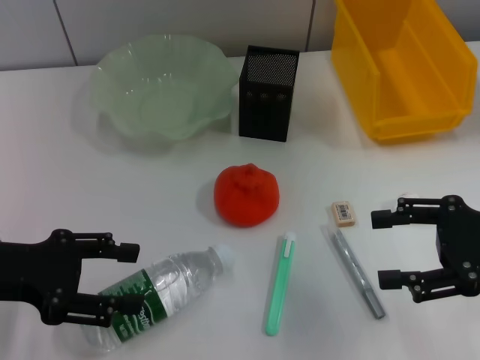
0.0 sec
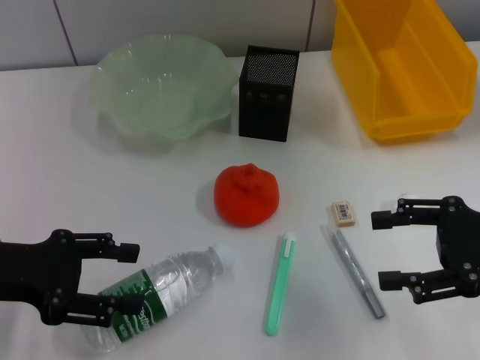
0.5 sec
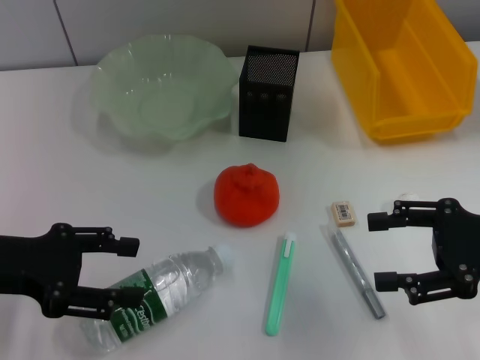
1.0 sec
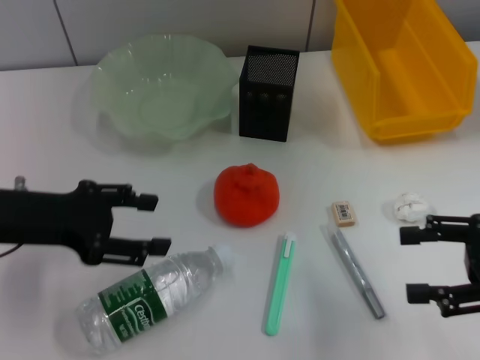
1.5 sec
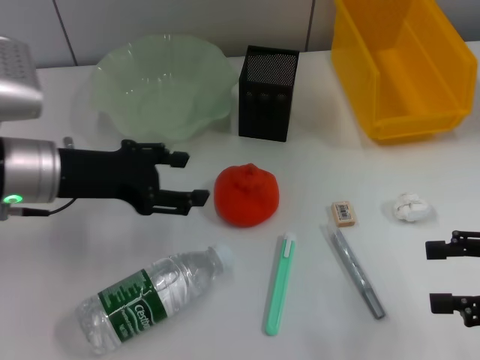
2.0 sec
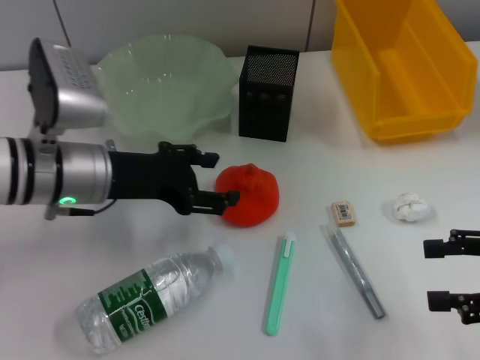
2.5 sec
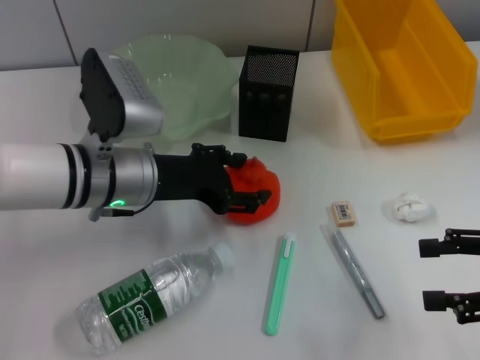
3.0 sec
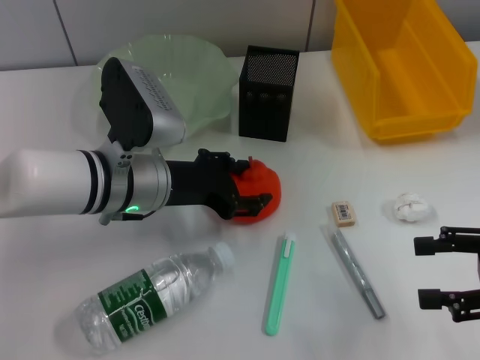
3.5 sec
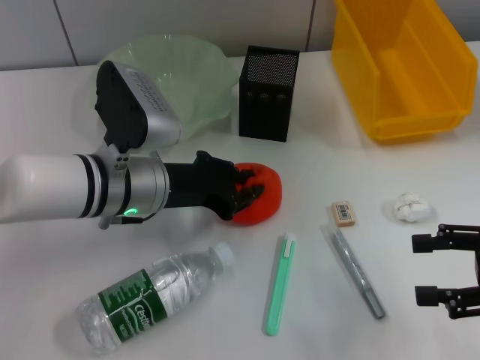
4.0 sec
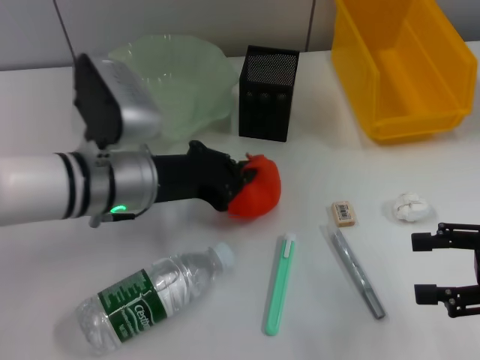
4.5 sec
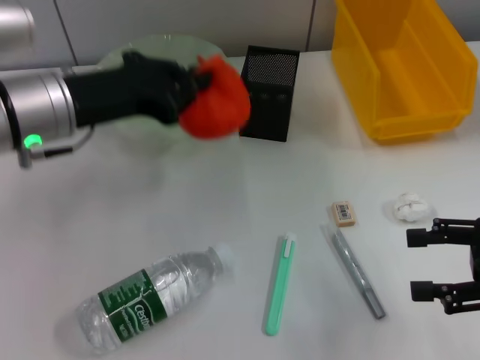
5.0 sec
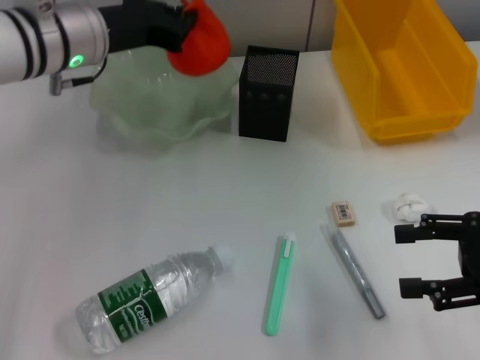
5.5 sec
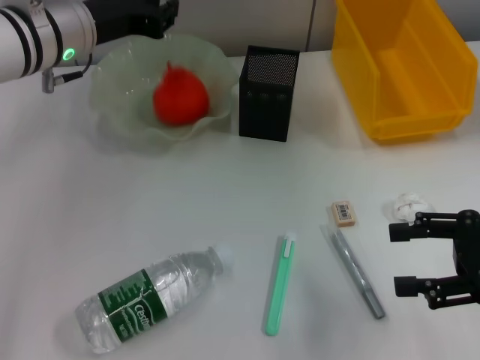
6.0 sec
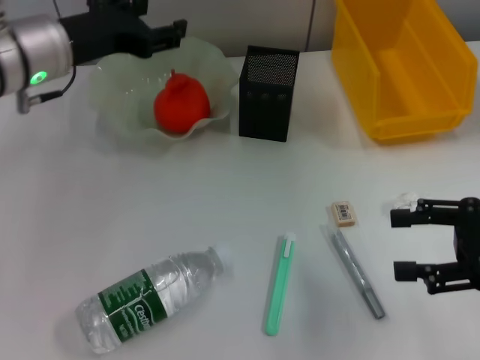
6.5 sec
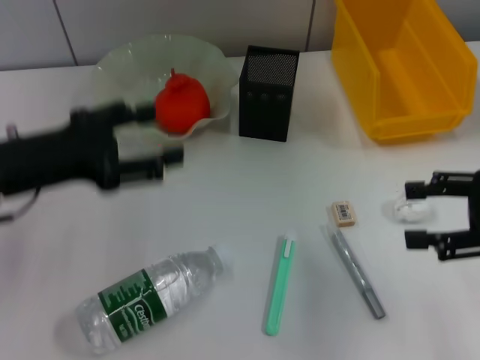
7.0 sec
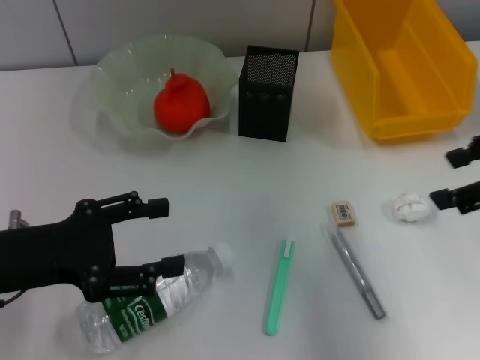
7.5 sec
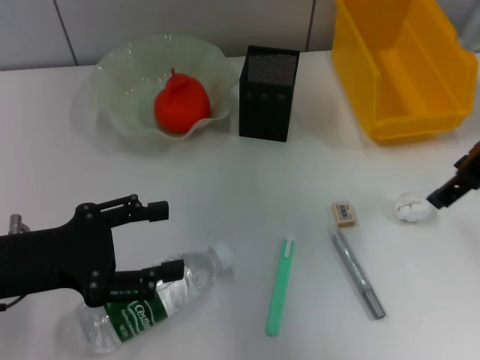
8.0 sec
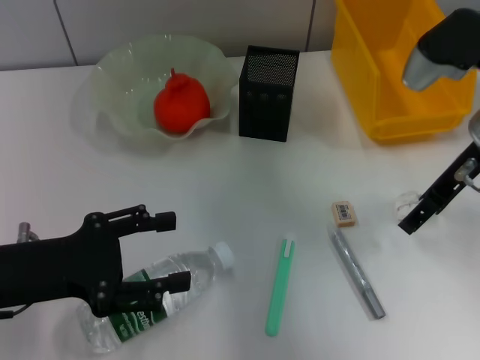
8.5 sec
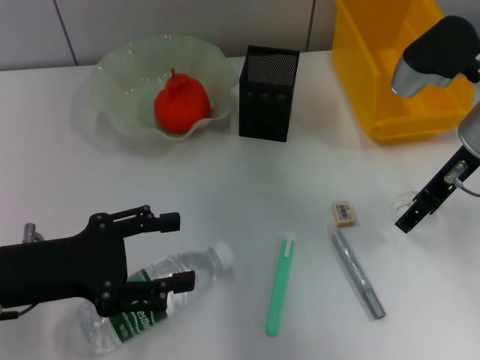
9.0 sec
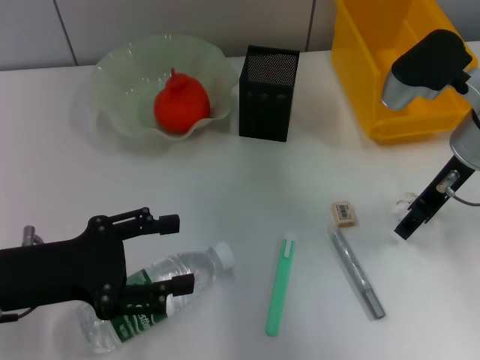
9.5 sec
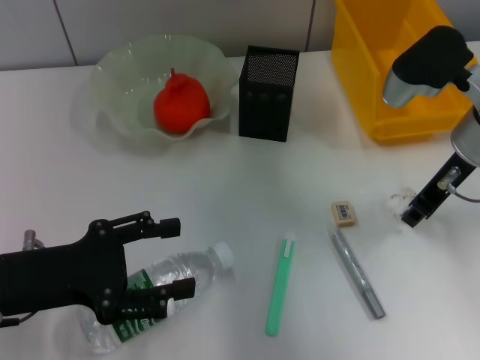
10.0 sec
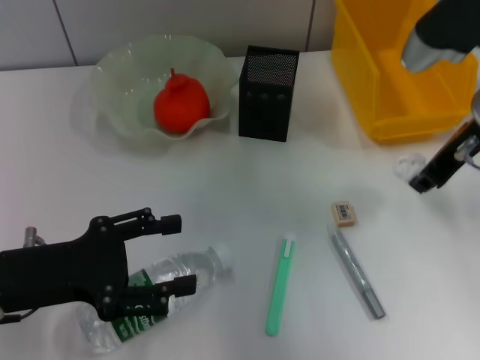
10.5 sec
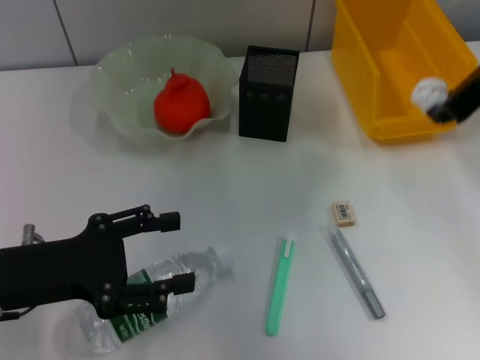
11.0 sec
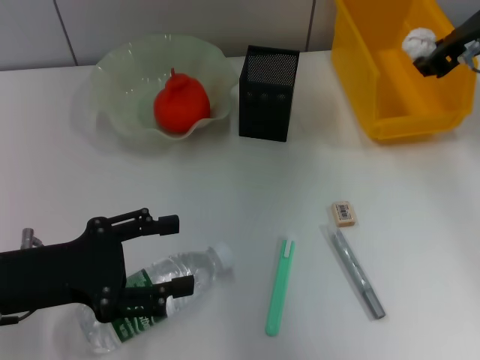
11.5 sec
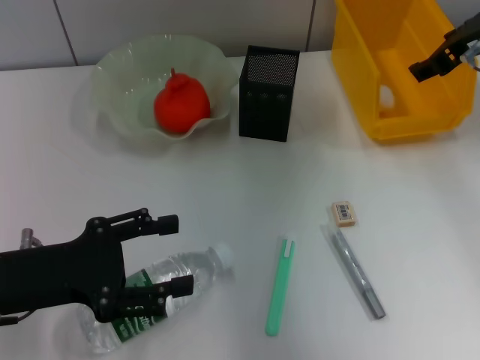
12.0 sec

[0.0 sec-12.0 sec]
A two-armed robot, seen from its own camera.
Step, 0.0 sec to 4.0 sec: Grab the orange with the left hand.
Step, 4.5 sec to 6.0 sec: Place the orange into the fruit bowl with the left hand.
Step, 6.5 sec to 9.5 sec: Grab the paper ball with the right hand.
Step, 10.5 sec to 11.5 sec: Place the paper ball into the trash can with the right hand.
0.0 sec to 2.0 sec: The right gripper ends up about 5 cm from where it was, while the left gripper heads to the right and forward, covering about 10 cm.
2.0 sec to 4.0 sec: The left gripper goes approximately 10 cm to the right.
4.0 sec to 6.0 sec: The left gripper heads forward and upward, covering some 15 cm, and closes.
6.0 sec to 8.0 sec: The right gripper is displaced forward, upward and to the left by about 15 cm; the left gripper moves backward and to the left, roughly 20 cm, and opens.
8.0 sec to 10.0 sec: The right gripper goes about 5 cm downward, and closes its fingers.
10.0 sec to 12.0 sec: The right gripper travels upward by about 5 cm, and opens.

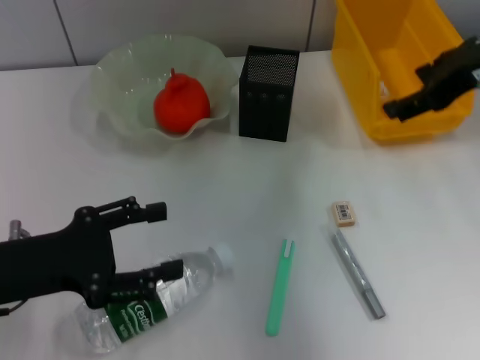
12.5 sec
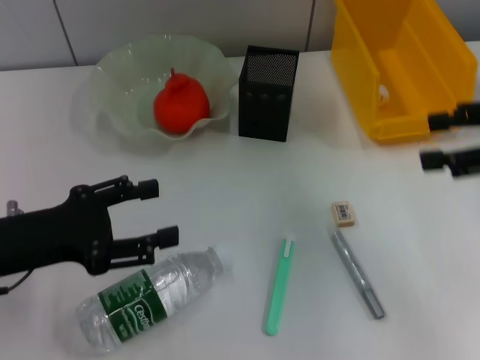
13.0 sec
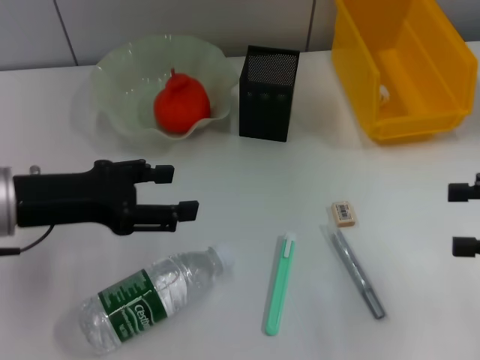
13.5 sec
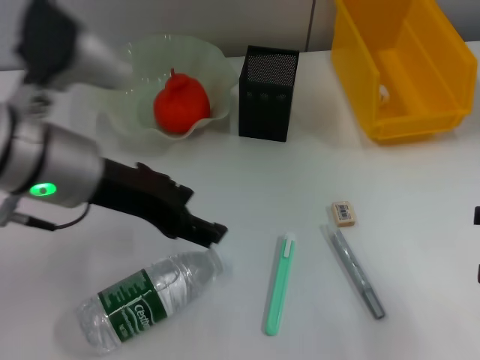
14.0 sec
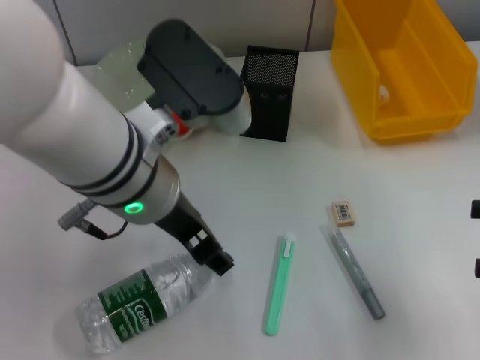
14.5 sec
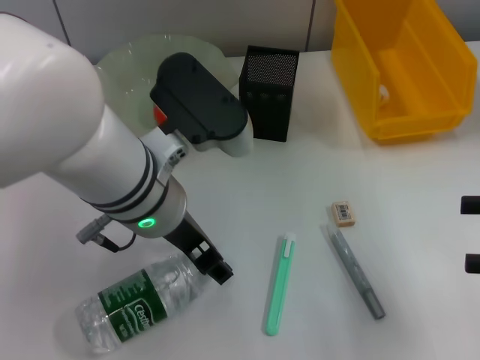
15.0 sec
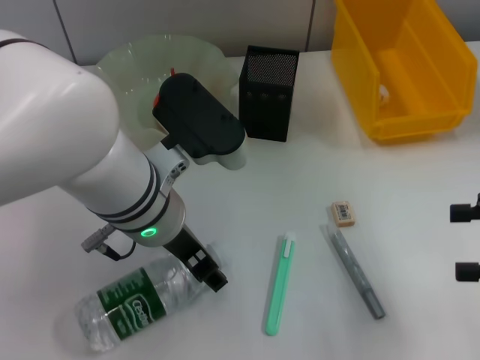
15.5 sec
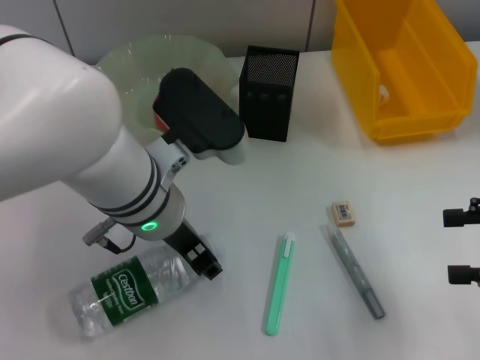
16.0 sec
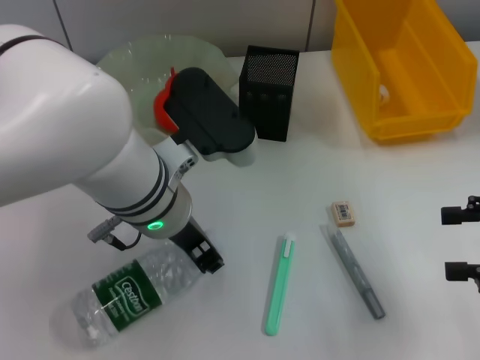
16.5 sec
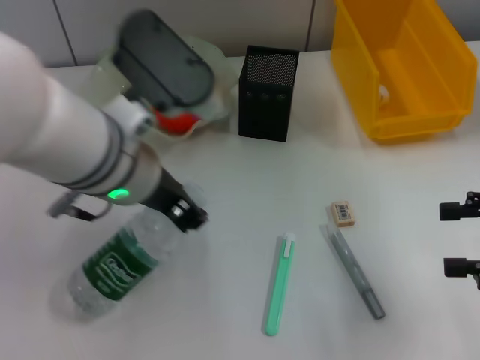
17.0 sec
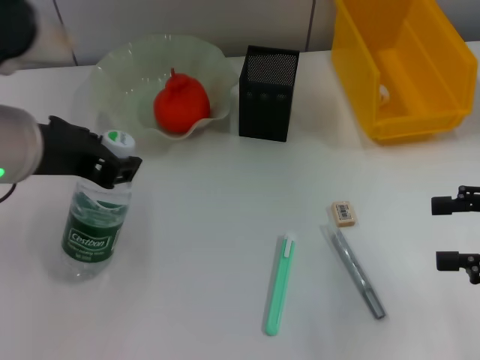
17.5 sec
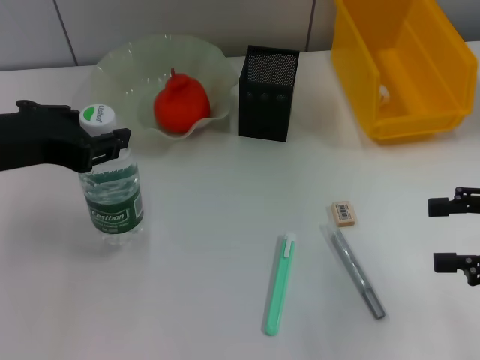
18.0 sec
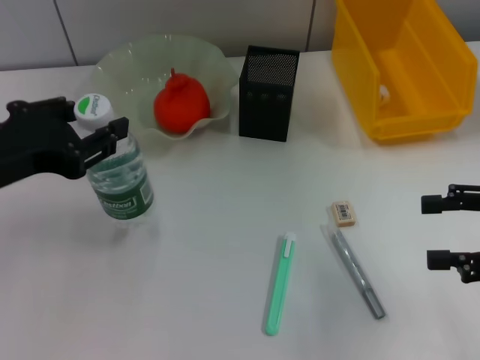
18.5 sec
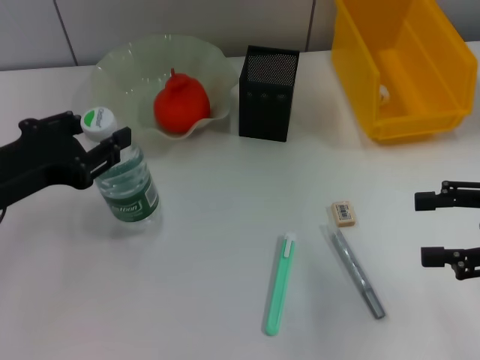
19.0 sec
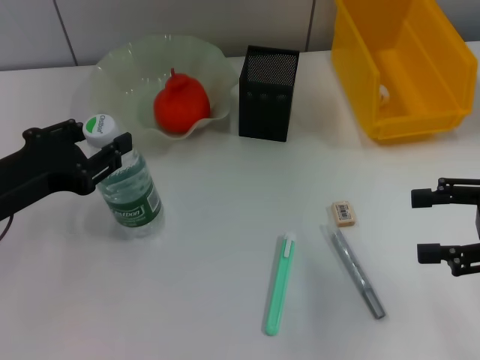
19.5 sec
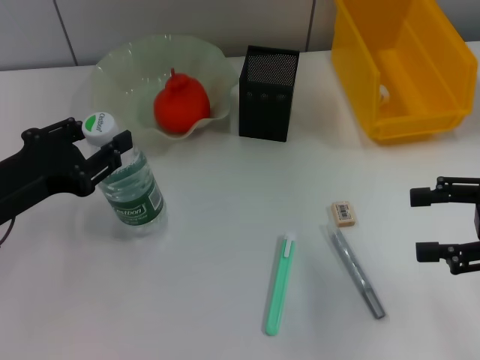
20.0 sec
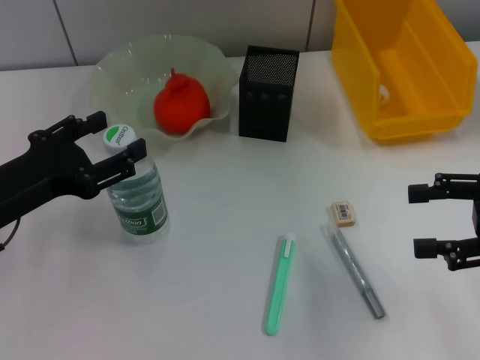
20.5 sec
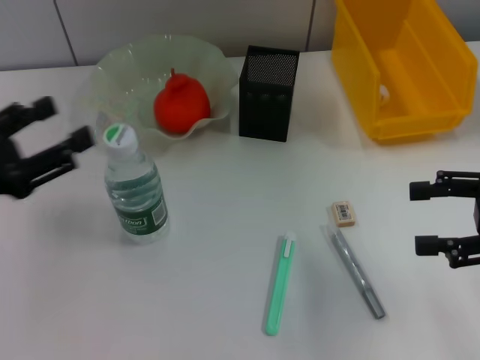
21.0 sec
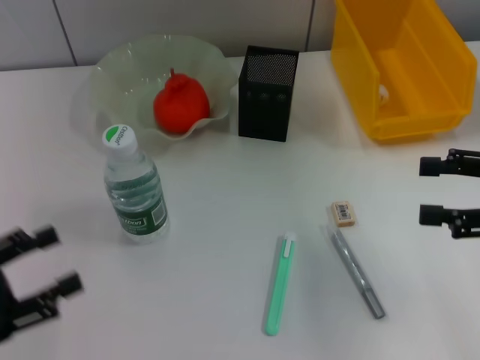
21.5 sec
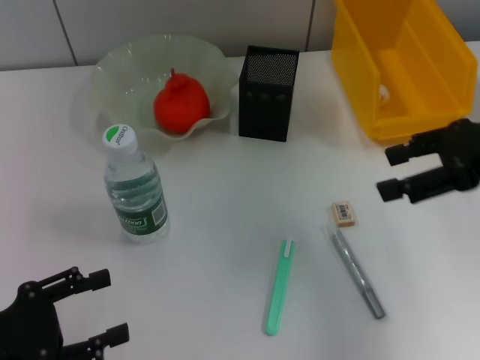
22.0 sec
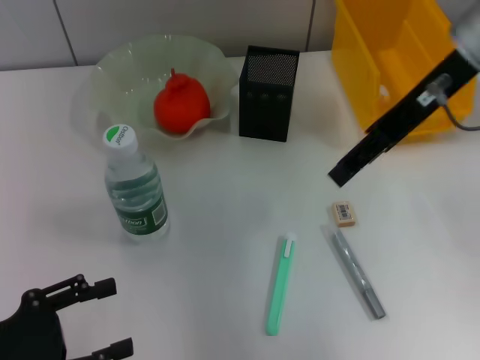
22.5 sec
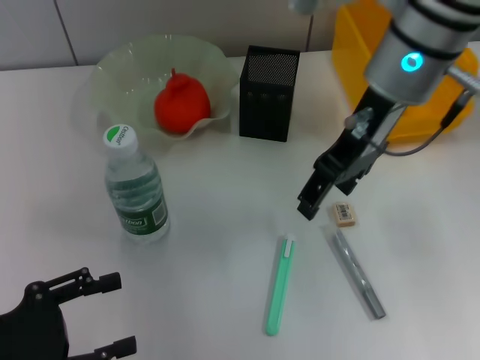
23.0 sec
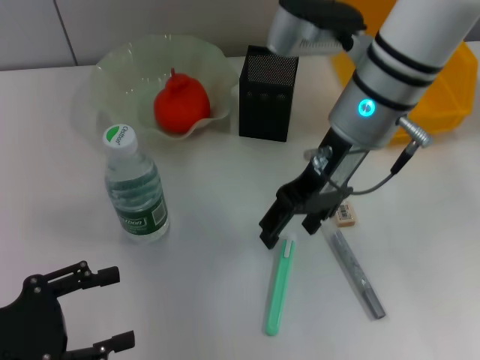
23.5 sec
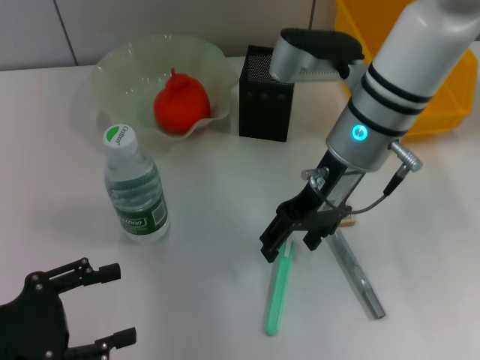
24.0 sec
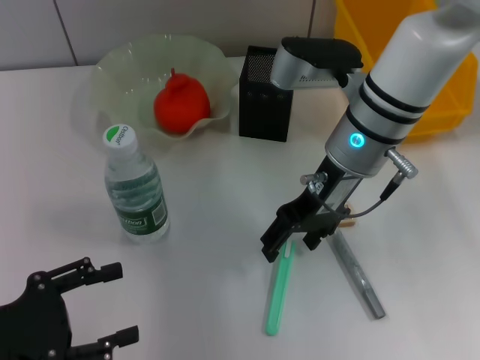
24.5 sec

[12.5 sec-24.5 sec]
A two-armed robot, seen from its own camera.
Step, 12.5 sec to 16.0 sec: Grab the water bottle with the left hand.
Step, 16.5 sec to 20.5 sec: Place the water bottle on the table with the left hand.
12.5 sec to 14.5 sec: The right gripper is displaced backward, to the right and downward by roughly 20 cm, while the left gripper travels to the right and upward by roughly 20 cm.
14.5 sec to 16.5 sec: The left gripper shifts approximately 5 cm downward, and closes up.
16.5 sec to 18.5 sec: The left gripper heads to the left, covering approximately 15 cm.
18.5 sec to 20.5 sec: The left gripper goes some 5 cm downward, and opens.
20.5 sec to 22.5 sec: The right gripper heads to the left, upward and forward, covering about 20 cm. Meanwhile the left gripper shifts roughly 10 cm backward, downward and to the left.
22.5 sec to 24.5 sec: The right gripper goes approximately 15 cm downward and to the left.

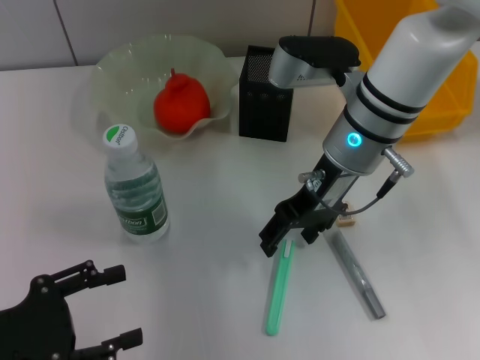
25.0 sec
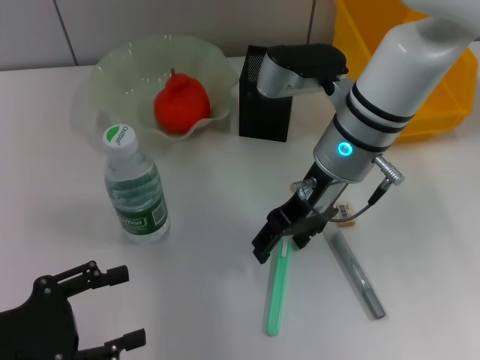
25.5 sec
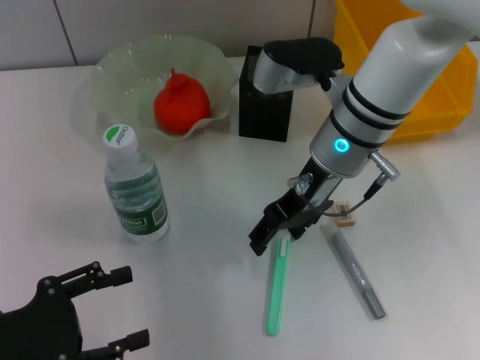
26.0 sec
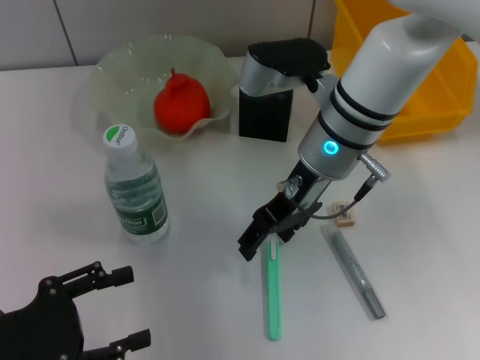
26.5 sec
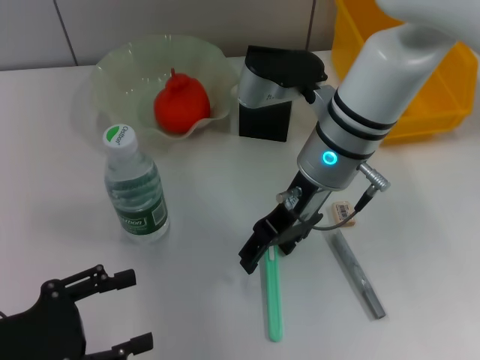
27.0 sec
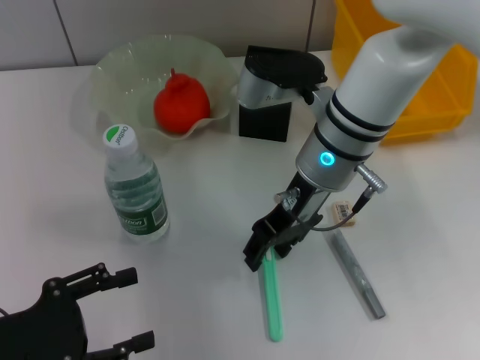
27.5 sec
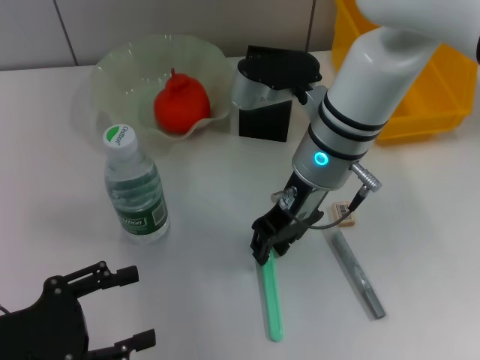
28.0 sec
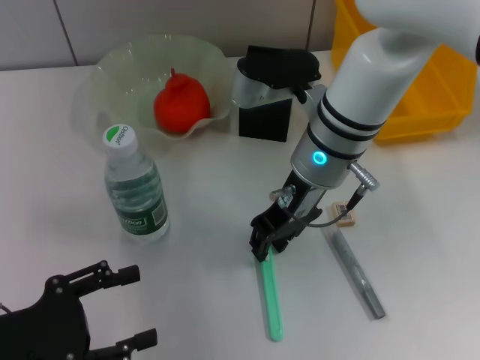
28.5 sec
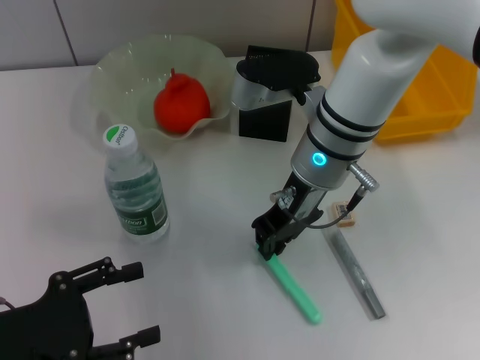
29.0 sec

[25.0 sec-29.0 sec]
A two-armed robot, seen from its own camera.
25.0 sec to 27.0 sec: The grippers stay close to where they were, moving slightly.
27.0 sec to 29.0 sec: The right gripper closes.
